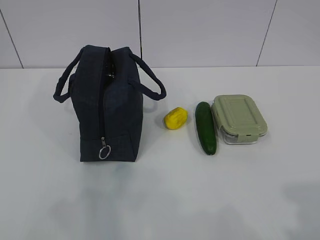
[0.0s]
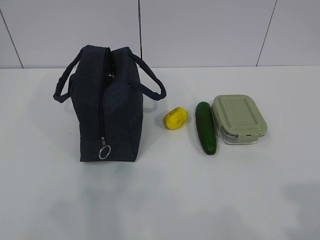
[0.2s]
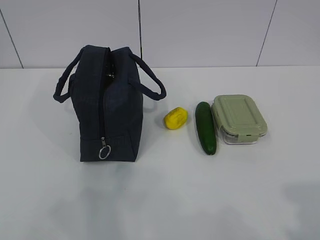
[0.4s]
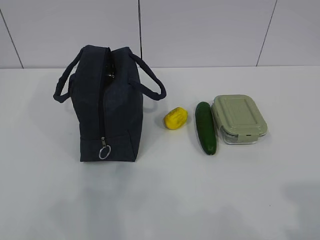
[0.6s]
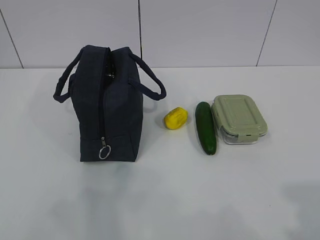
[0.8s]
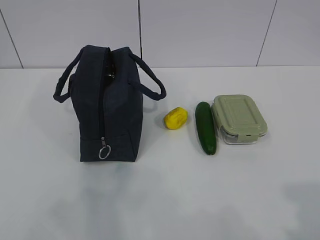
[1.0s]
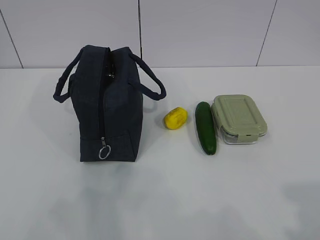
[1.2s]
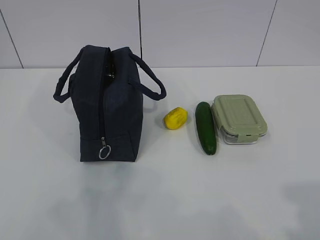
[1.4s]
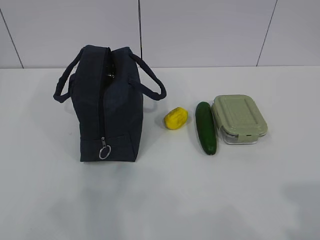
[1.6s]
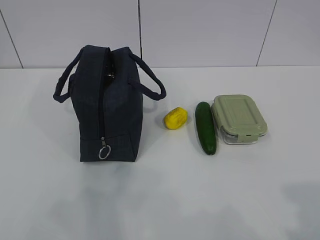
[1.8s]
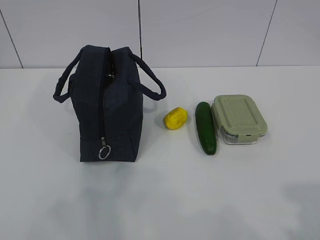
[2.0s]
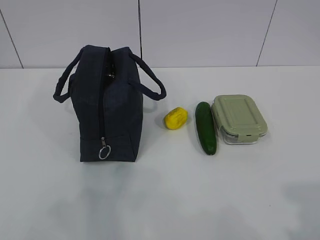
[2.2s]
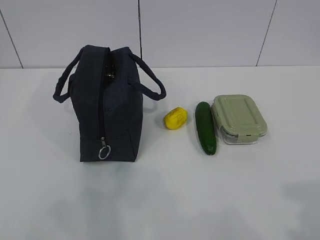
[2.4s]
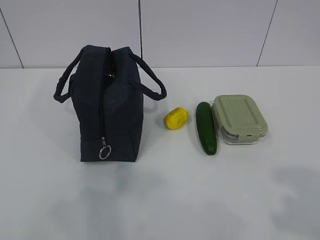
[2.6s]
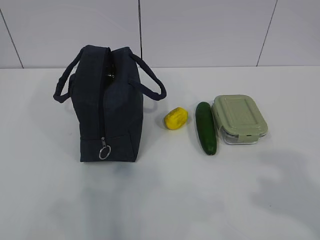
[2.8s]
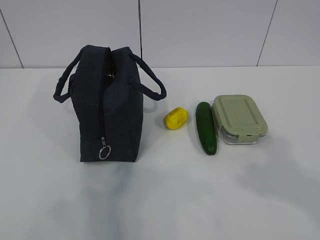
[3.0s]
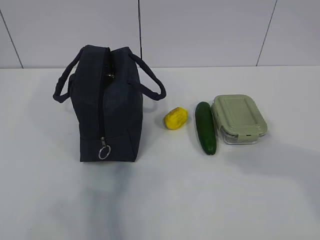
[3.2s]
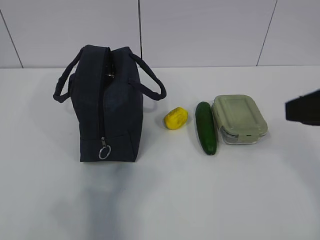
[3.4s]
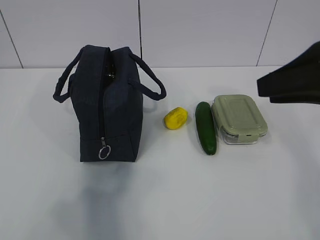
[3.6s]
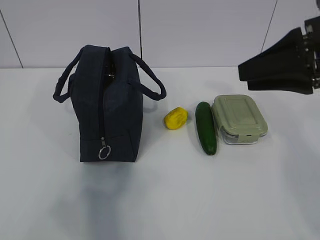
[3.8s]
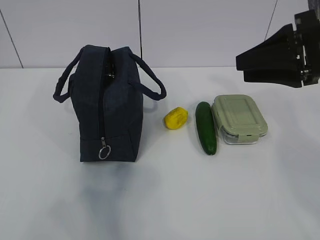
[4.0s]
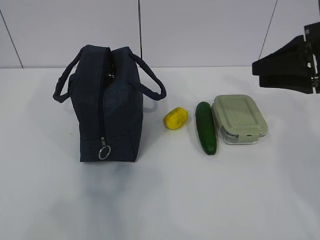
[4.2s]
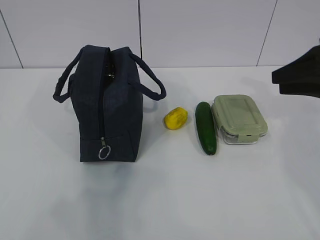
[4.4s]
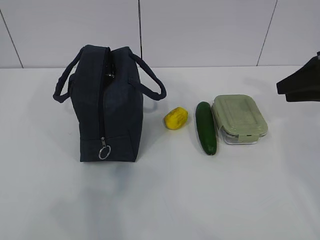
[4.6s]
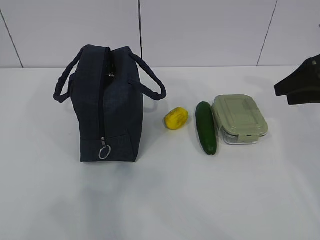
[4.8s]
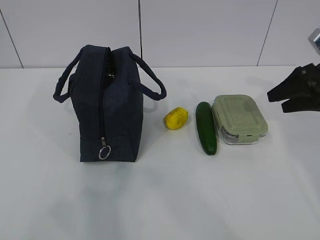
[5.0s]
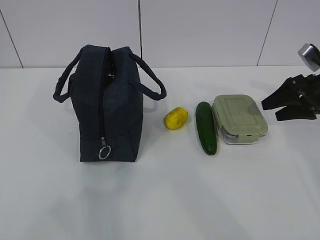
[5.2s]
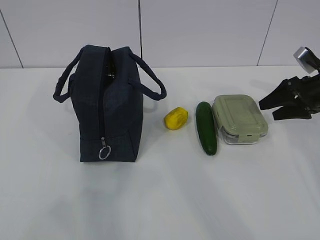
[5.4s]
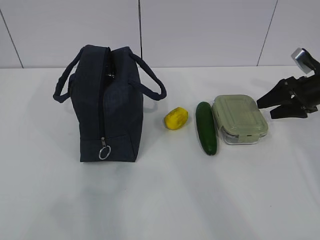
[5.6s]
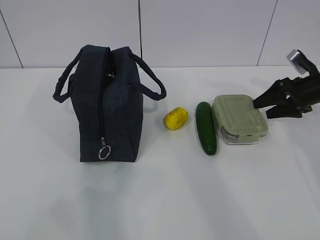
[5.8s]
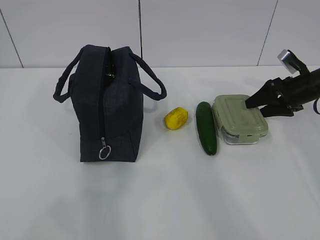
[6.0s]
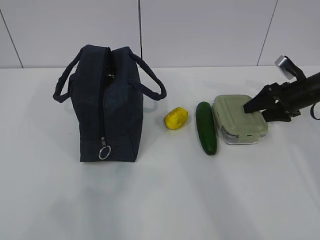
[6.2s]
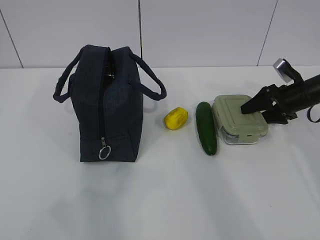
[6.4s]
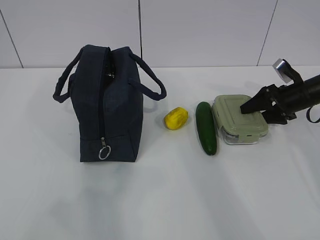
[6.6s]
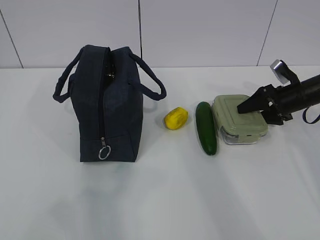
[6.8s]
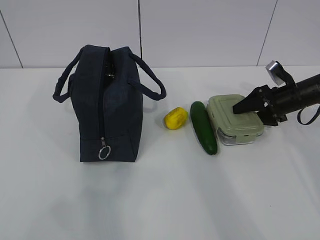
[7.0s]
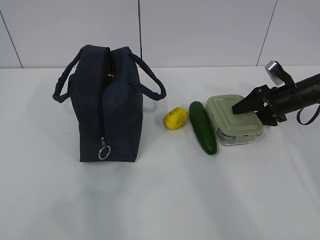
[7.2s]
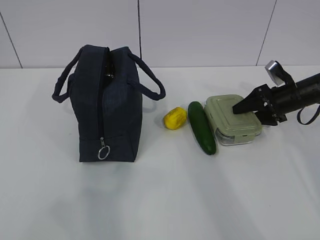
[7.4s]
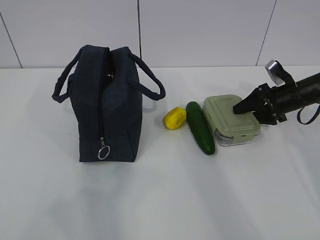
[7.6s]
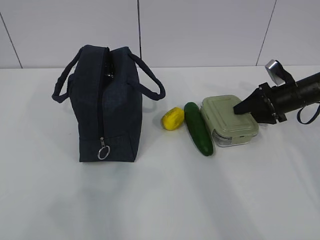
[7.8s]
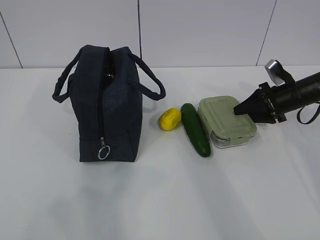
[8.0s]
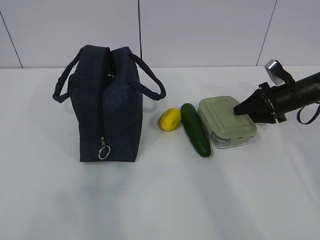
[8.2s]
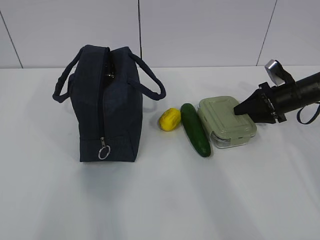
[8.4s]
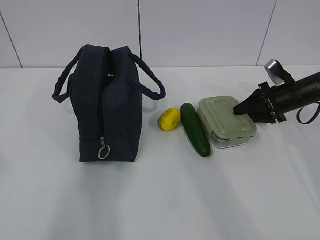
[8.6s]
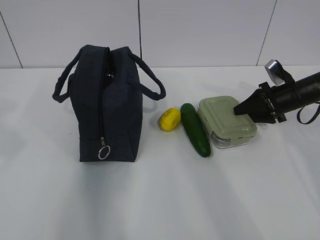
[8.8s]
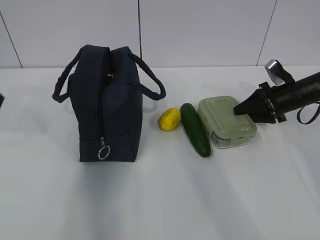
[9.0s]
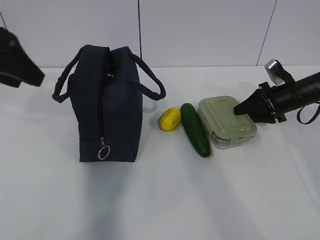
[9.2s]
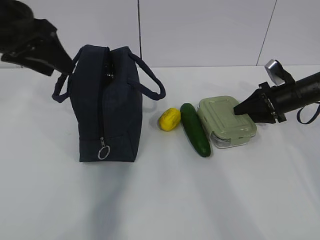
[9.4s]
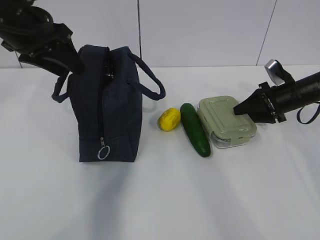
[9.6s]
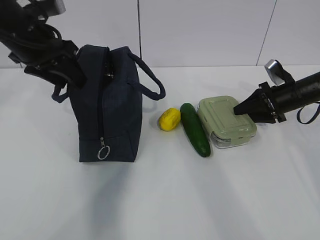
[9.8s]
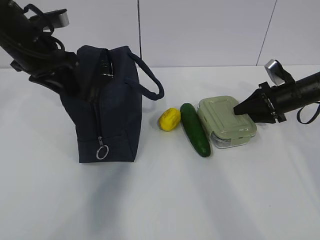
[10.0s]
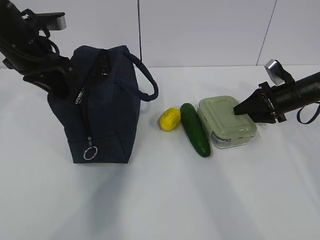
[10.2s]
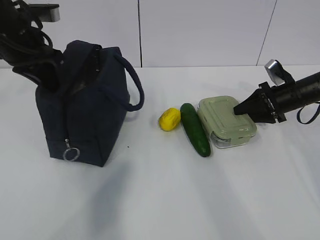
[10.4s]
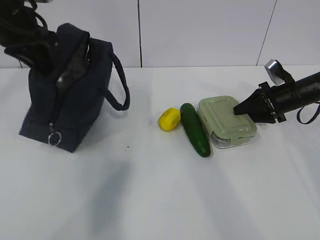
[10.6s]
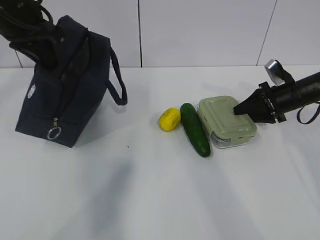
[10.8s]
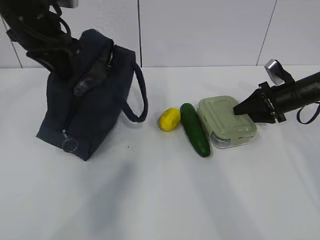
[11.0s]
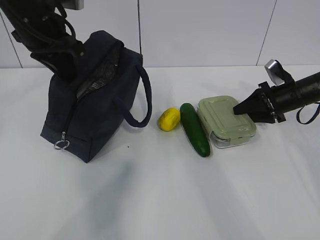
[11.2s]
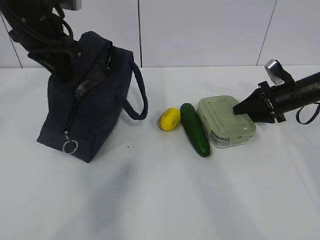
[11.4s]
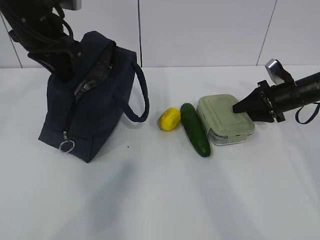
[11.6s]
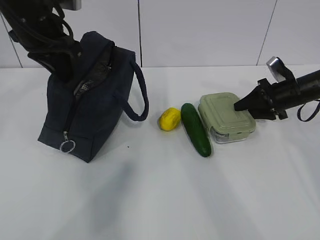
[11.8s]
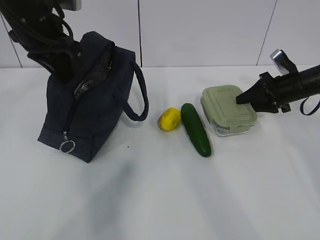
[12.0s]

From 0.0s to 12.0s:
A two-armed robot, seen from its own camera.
Step, from 0.0s to 9.6s: Grab the lunch box with your right hand.
Step, from 9.8s to 11.6s: Grab the lunch bag with your left hand.
From 3.0s to 4.4s: The right gripper travels forward by roughly 25 cm.
From 4.4s to 6.0s: The right gripper travels forward and downward by roughly 20 cm, and opens.
From 6.0s to 7.6s: The grippers make only small movements.
From 7.6s to 9.0s: The left gripper shifts approximately 25 cm forward, and opens.
From 9.0s to 10.4s: The left gripper is displaced forward by roughly 15 cm, and closes its fingers.
From 10.4s to 12.0s: The grippers stay close to where they were, moving slightly.

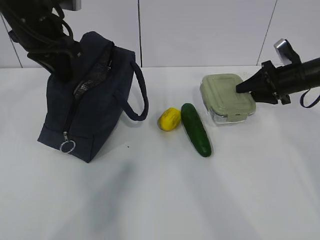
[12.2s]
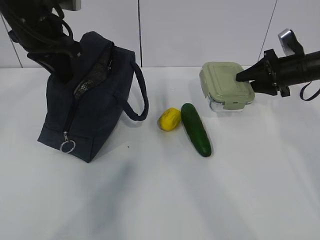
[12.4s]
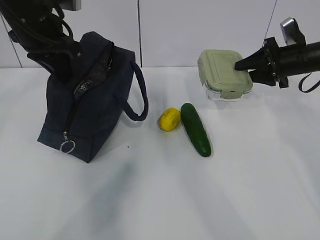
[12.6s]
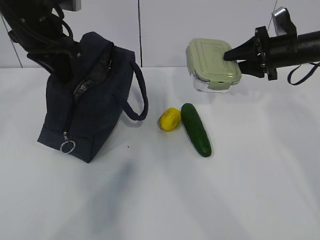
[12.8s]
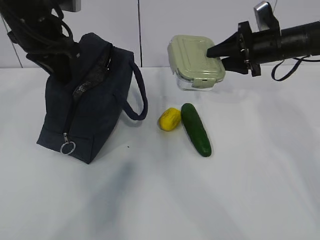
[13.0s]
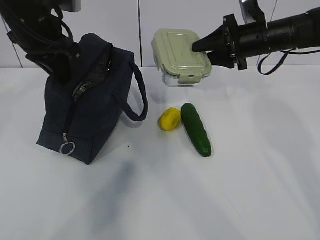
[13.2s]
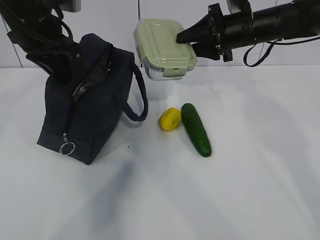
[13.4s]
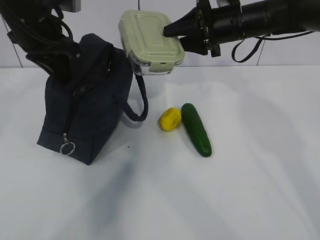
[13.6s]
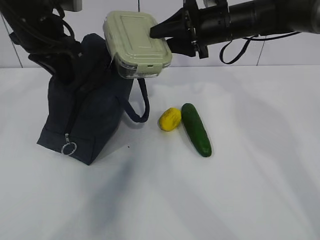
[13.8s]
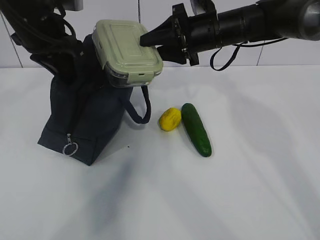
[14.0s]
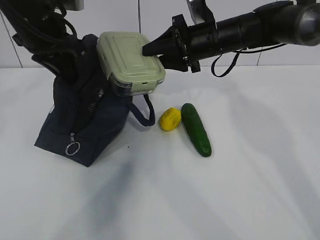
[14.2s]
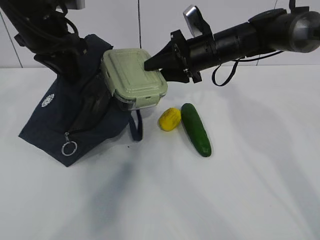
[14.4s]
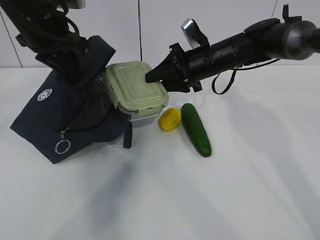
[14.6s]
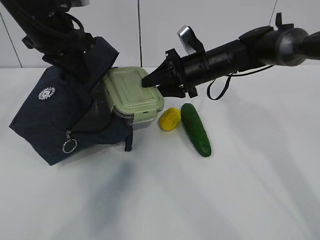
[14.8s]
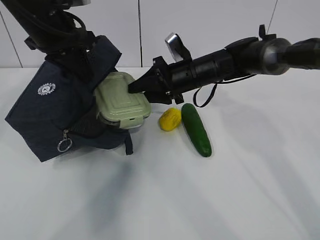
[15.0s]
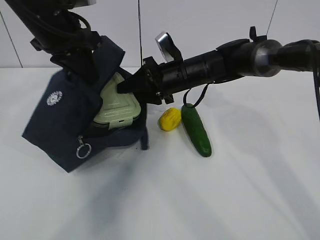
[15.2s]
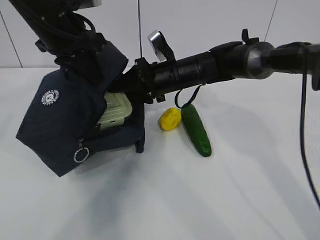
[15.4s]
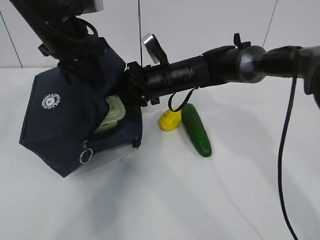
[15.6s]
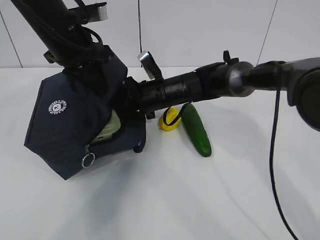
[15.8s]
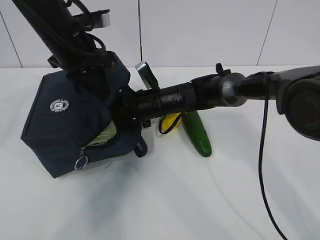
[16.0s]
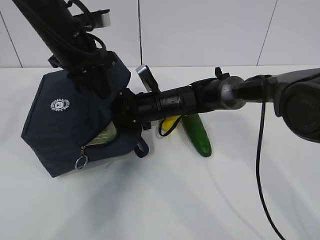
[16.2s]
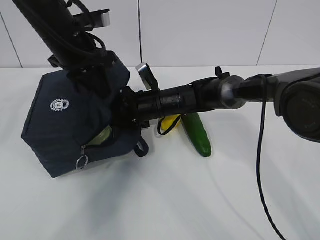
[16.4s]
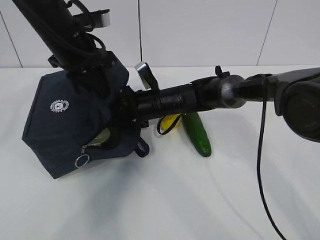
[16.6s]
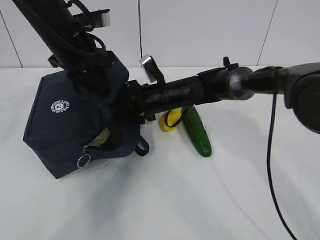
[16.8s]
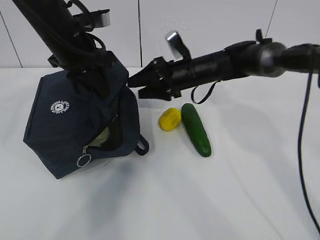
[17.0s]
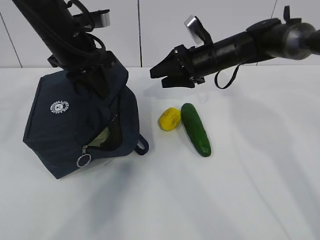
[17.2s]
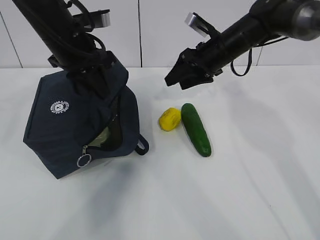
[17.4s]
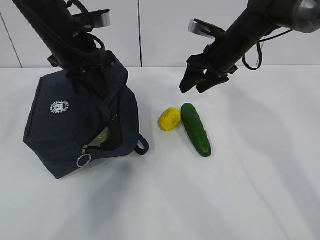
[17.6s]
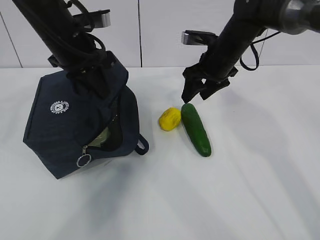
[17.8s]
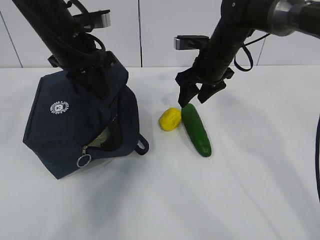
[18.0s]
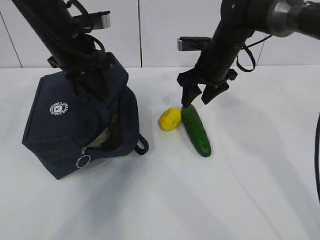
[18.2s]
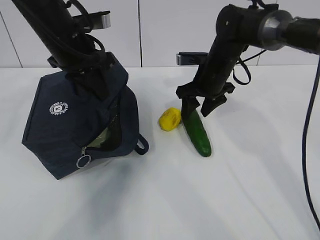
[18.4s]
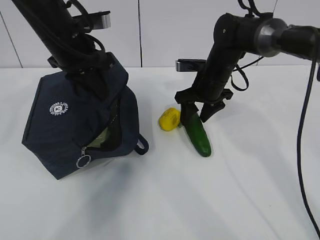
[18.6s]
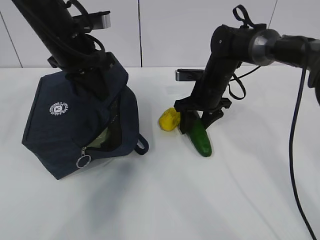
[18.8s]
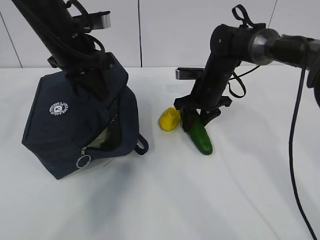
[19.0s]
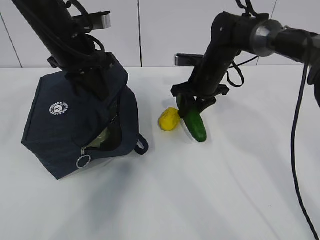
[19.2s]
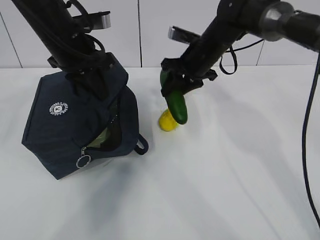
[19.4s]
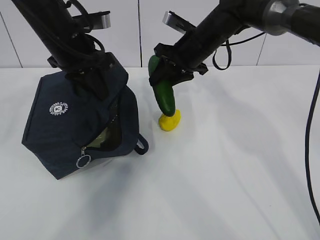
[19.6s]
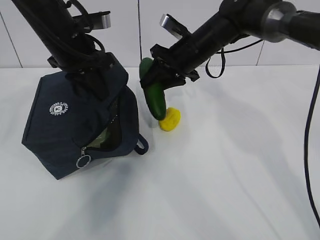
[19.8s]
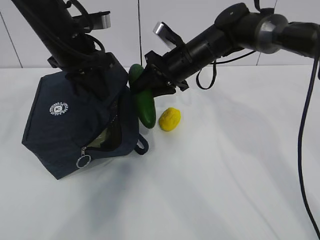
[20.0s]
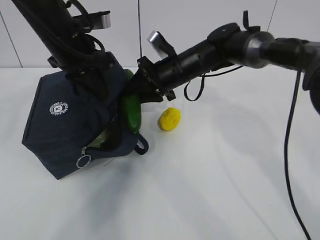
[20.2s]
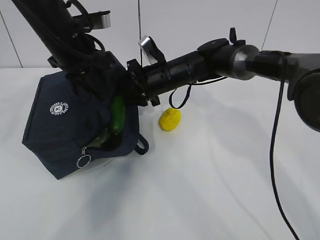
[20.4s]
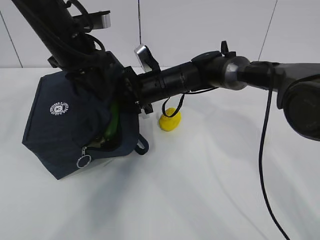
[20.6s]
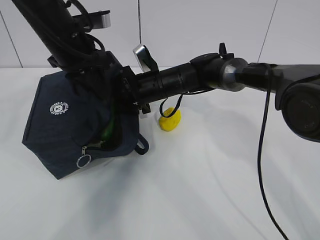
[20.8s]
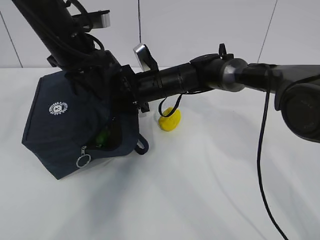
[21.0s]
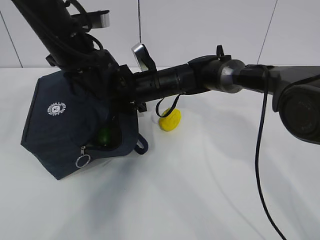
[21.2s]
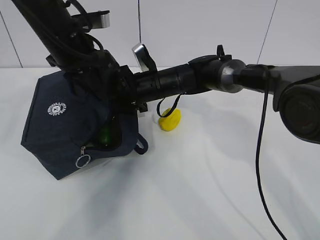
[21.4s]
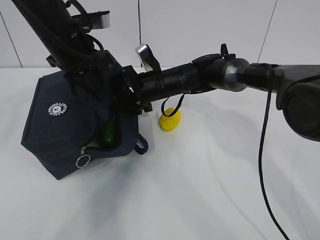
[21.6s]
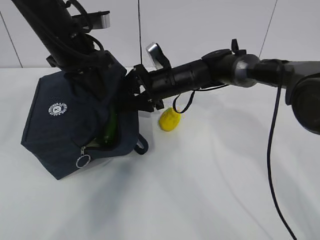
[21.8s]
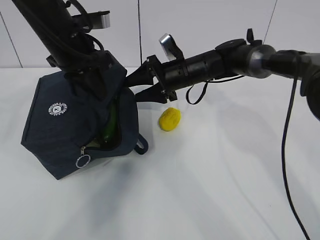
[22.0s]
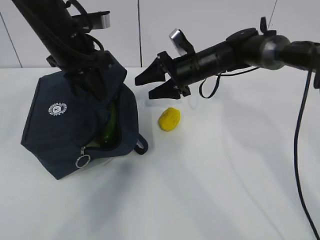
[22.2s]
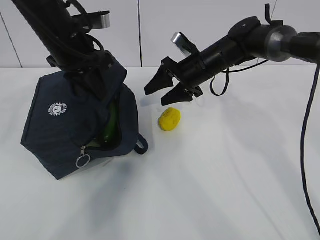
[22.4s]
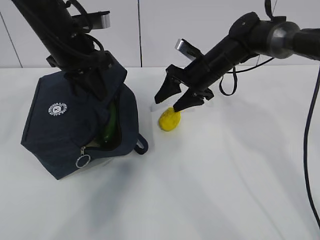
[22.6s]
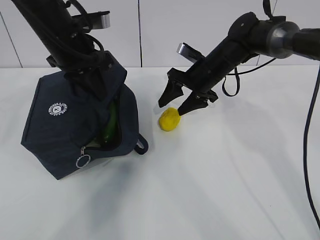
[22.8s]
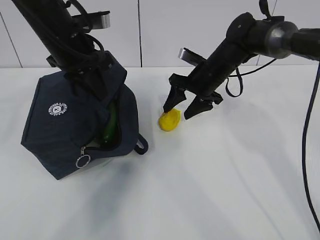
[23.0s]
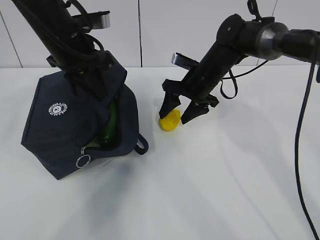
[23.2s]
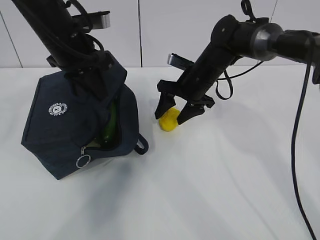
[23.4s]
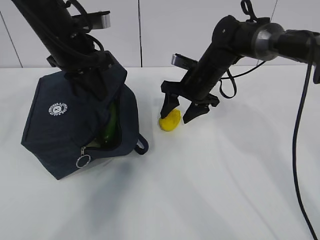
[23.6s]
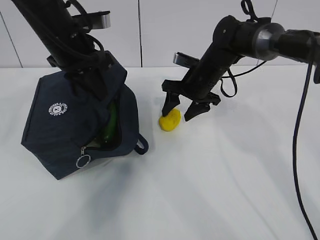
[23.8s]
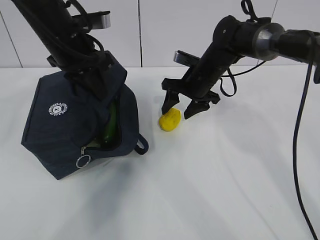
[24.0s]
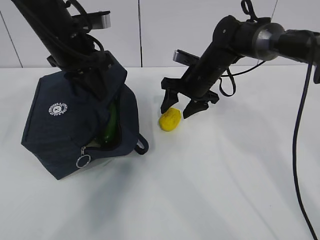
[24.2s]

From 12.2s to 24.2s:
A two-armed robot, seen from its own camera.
Step, from 12.2s to 13.8s: Place it into the bag with your right hand.
Step, from 14.0s to 15.6s: Grab the cucumber with your right hand.
Step, from 16.0s to 18.0s: Place it into the bag with your right hand.
Step, from 18.2s to 22.2s: Grab the lemon with your right hand.
From 12.2s to 13.8s: The right gripper heads to the left and upward, covering some 20 cm.
From 13.8s to 15.2s: The right gripper heads downward and to the left, covering approximately 10 cm.
From 15.2s to 16.6s: The right gripper is displaced downward by approximately 5 cm.
From 16.6s to 18.2s: The right gripper goes about 15 cm to the right and upward.
From 18.2s to 19.8s: The right gripper goes downward and returns, roughly 5 cm each way.
From 19.8s to 21.2s: The right gripper goes approximately 10 cm to the left and downward, and opens its fingers.
From 21.2s to 22.6s: The right gripper is displaced to the right by approximately 10 cm.
From 22.6s to 24.2s: The grippers stay close to where they were, moving slightly.
